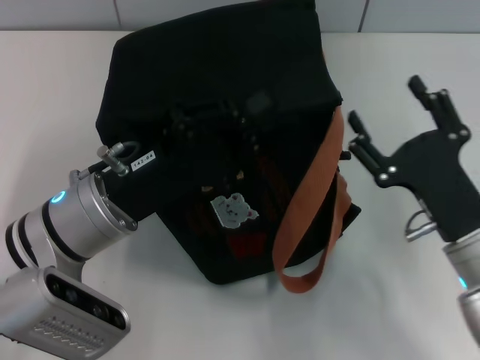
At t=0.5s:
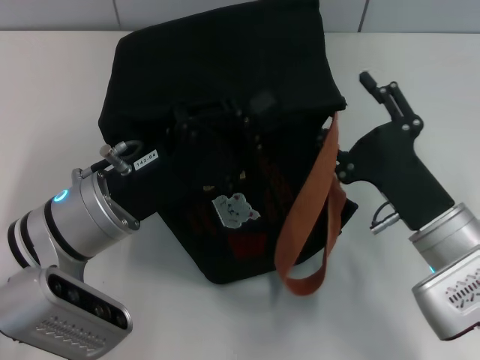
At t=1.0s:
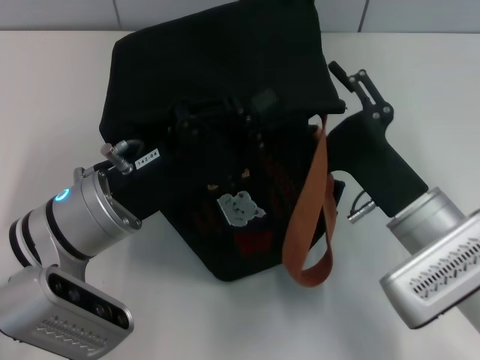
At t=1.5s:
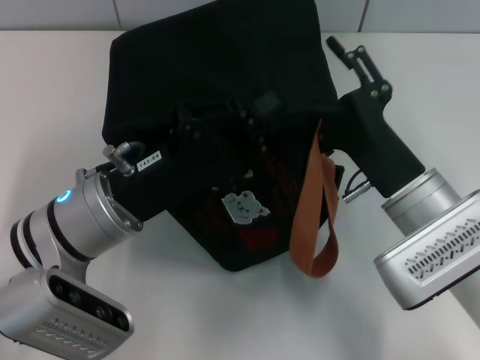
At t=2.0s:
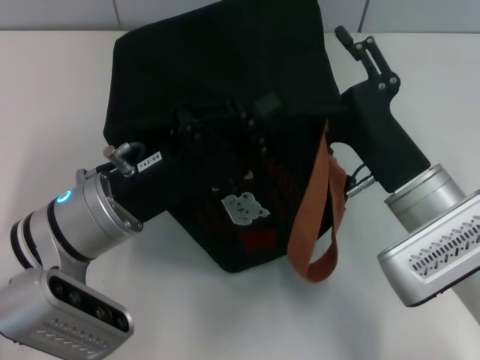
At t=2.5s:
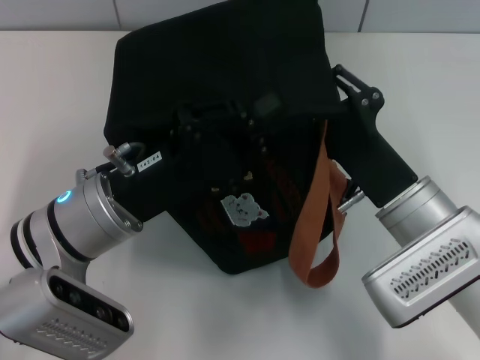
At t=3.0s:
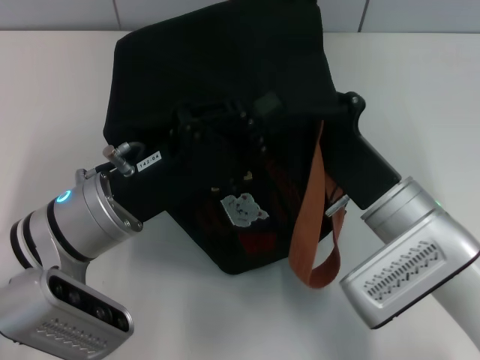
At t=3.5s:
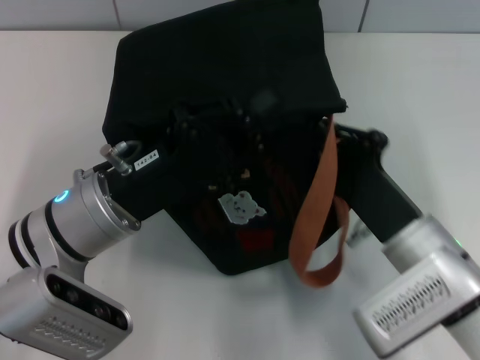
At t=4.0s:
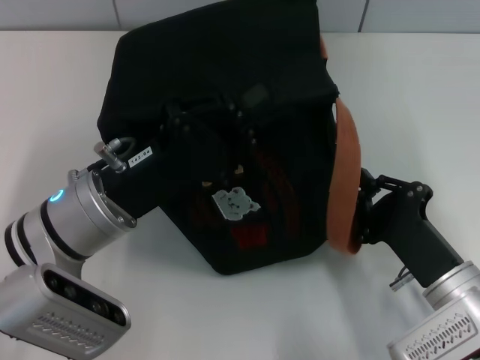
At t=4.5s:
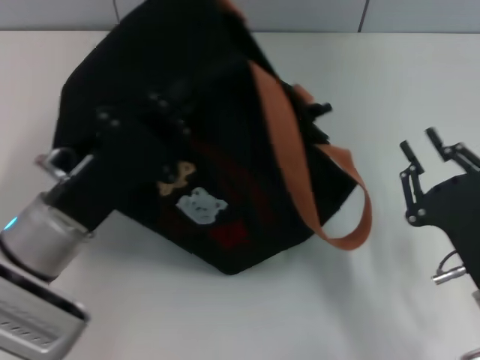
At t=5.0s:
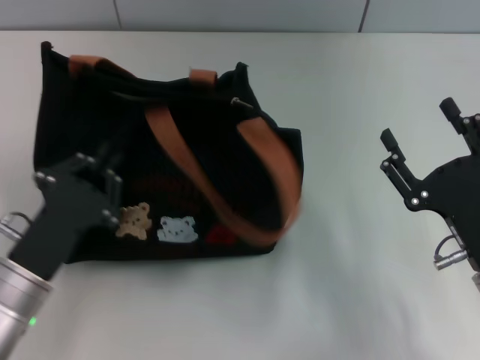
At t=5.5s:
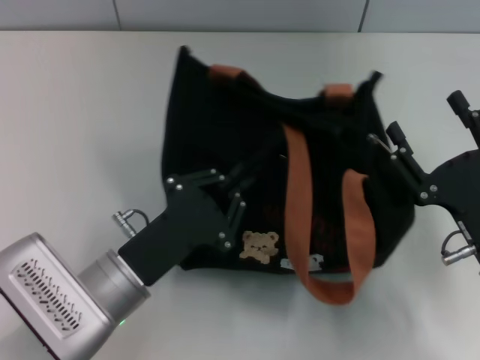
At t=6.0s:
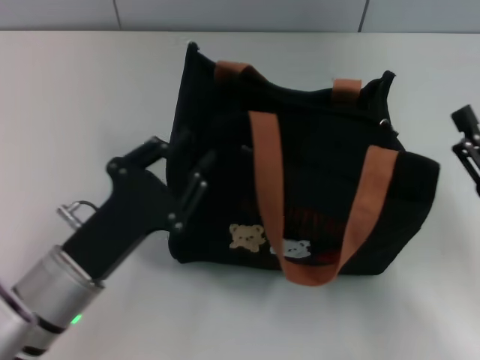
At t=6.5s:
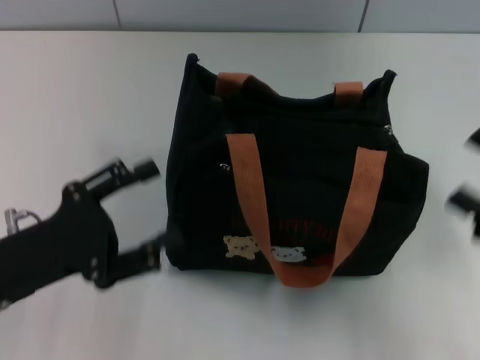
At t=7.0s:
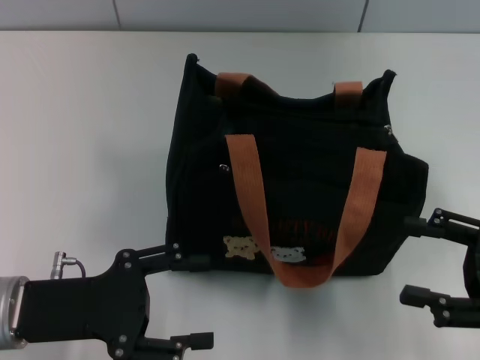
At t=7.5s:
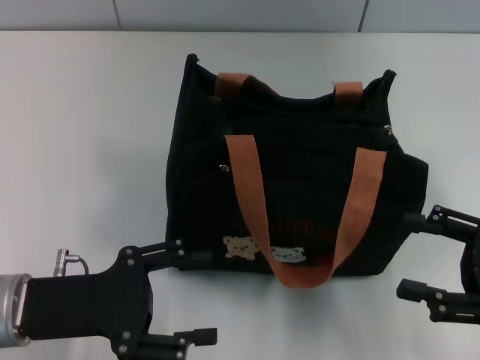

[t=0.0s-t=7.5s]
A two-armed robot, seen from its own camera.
Step, t=0.0s to t=4.0s: Pull open the zipper with your right hand.
Step, t=4.5s to t=6.0s: Grab the bag with your left hand.
t=0.0s to t=2.0s: The right gripper is displaced to the left by approximately 5 cm.
t=2.0s to t=4.0s: The right gripper moves downward and backward, roughly 10 cm, and closes.
t=4.0s to t=5.5s: The left gripper goes about 10 cm downward and backward, and goes to the left and returns, roughly 5 cm each way, while the right gripper opens up.
t=5.5s to t=7.5s: The right gripper shifts approximately 10 cm to the right, while the left gripper heads to the left, covering some 10 cm, and opens up.
